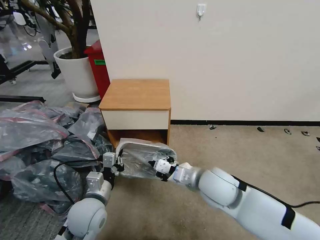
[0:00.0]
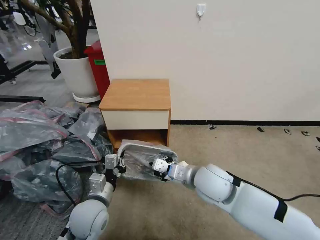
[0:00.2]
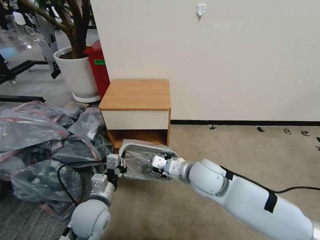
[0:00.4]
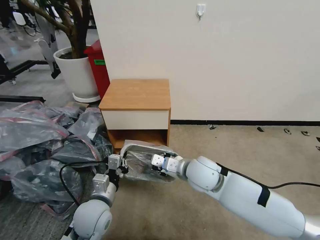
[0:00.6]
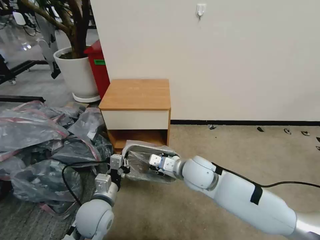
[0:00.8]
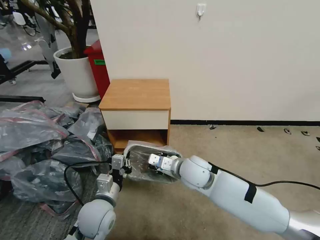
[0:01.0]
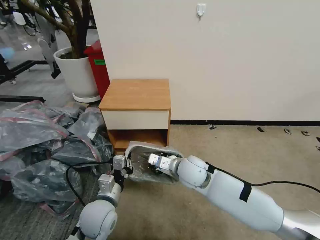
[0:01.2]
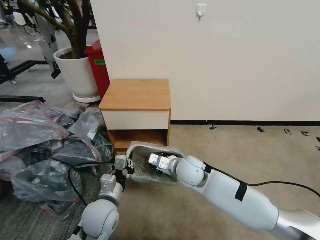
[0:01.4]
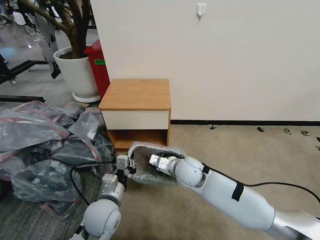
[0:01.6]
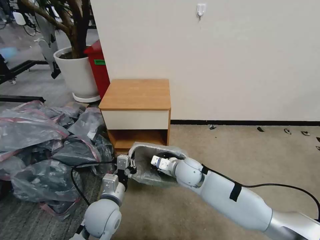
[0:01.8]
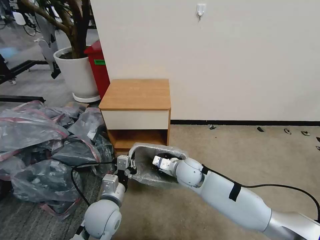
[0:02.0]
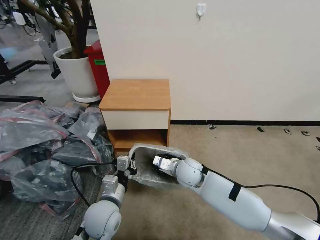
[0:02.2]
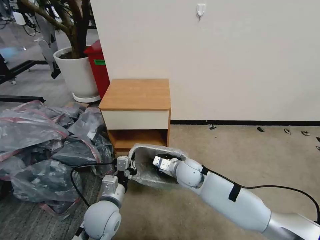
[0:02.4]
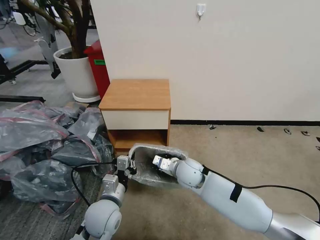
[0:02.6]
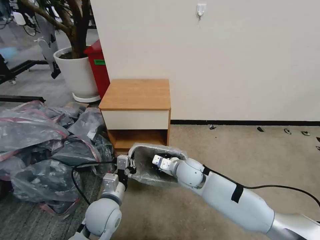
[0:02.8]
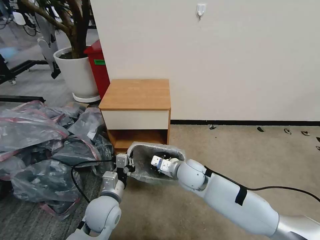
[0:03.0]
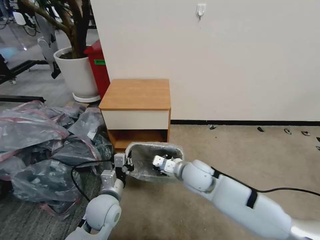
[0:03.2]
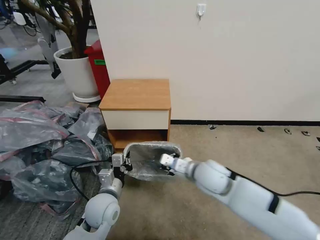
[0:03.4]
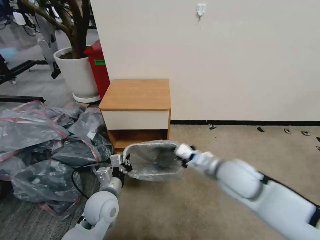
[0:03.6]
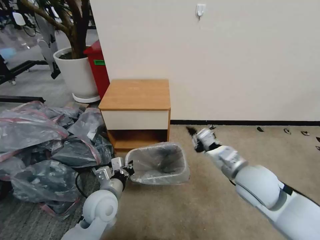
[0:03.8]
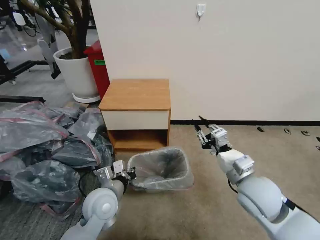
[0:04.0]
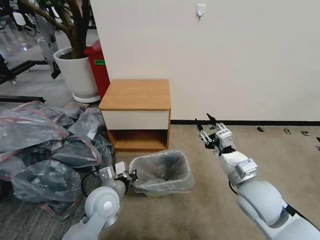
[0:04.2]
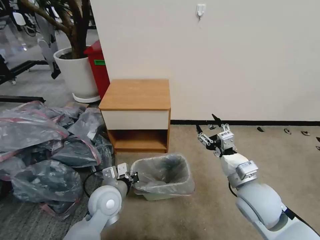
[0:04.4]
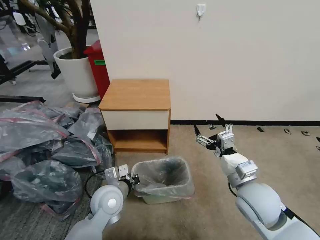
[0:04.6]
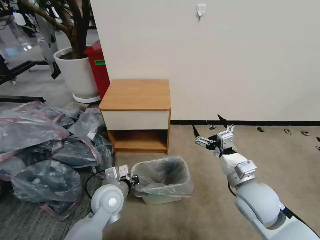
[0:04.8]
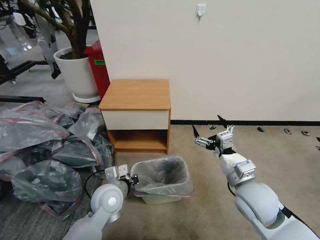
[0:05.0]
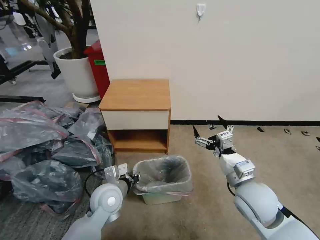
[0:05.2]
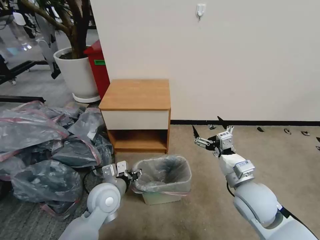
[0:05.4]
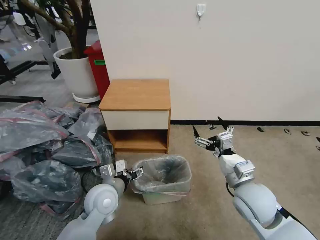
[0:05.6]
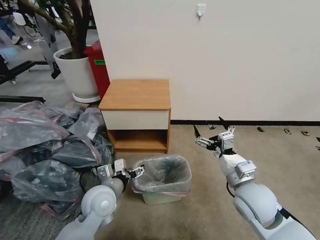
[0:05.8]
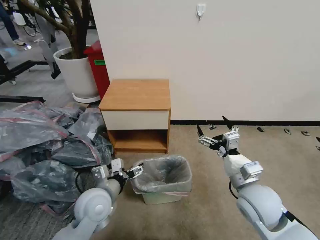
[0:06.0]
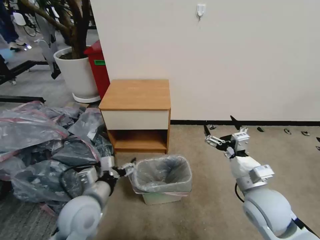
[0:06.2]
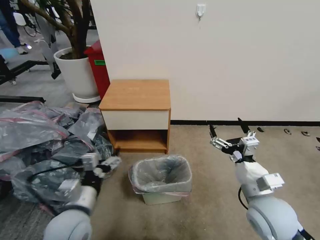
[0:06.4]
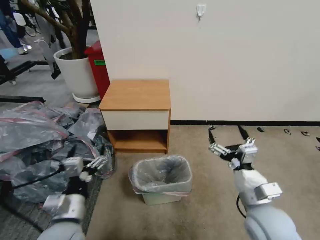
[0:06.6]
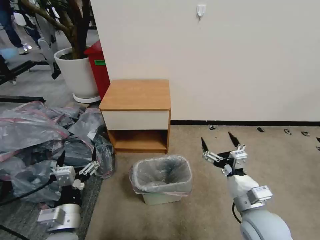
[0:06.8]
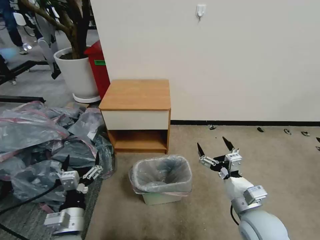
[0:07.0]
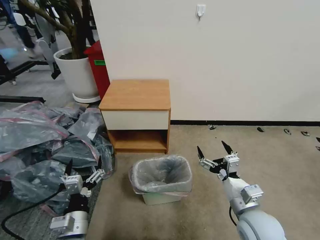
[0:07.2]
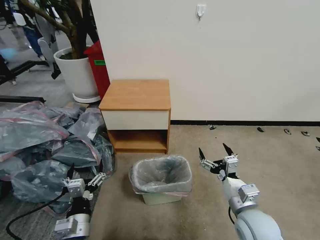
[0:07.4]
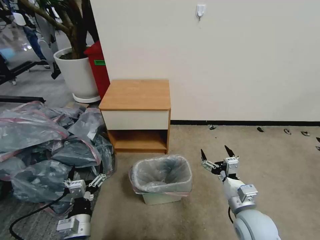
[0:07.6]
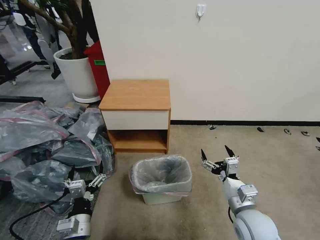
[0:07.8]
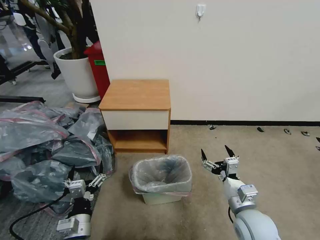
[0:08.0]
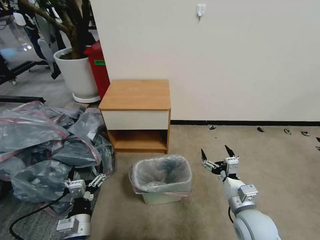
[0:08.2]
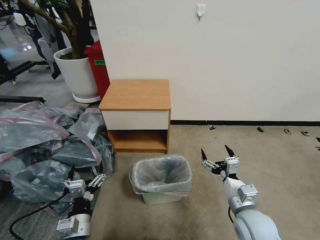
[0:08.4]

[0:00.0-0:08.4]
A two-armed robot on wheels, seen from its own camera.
Task of the whole recording: Pick up the garbage bag from the table and place it over the trash can.
0:00.0 to 0:01.4: The right gripper travels forward, downward and to the left by some 10 cm.
0:01.4 to 0:02.8: There are only small adjustments of the grippers.
0:02.8 to 0:04.2: The right gripper is displaced to the right, backward and upward by some 20 cm, and opens its fingers.
0:04.2 to 0:05.6: The left gripper opens; the right gripper opens.
0:05.6 to 0:07.0: The right gripper heads backward, covering roughly 5 cm; the left gripper heads backward and to the left, covering approximately 15 cm.
0:07.0 to 0:08.4: The grippers move only a little.
